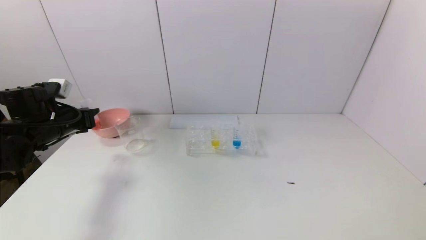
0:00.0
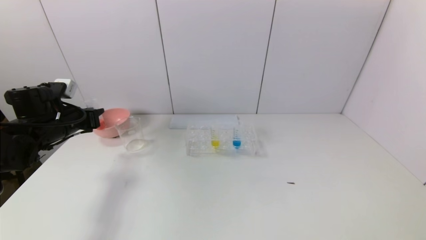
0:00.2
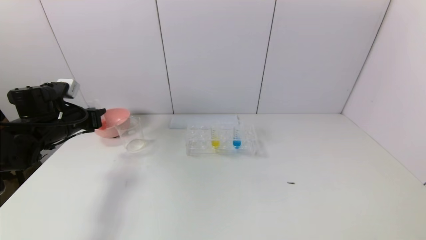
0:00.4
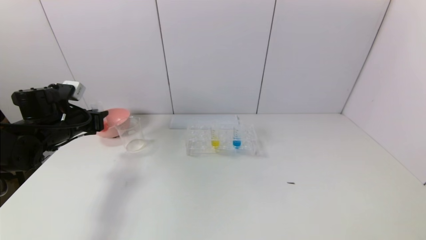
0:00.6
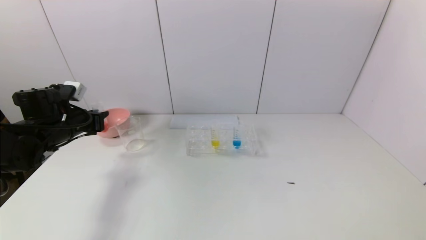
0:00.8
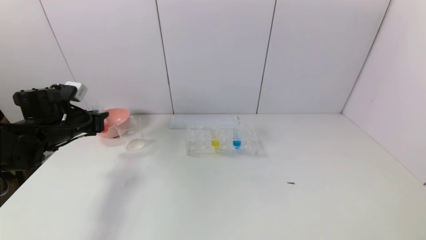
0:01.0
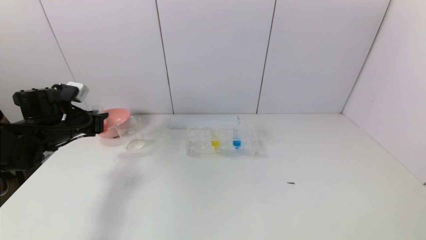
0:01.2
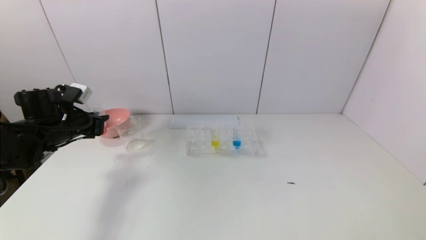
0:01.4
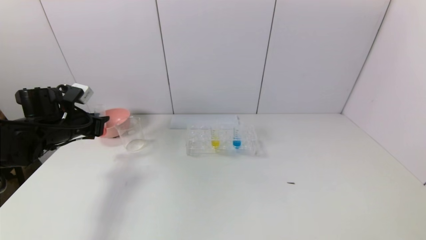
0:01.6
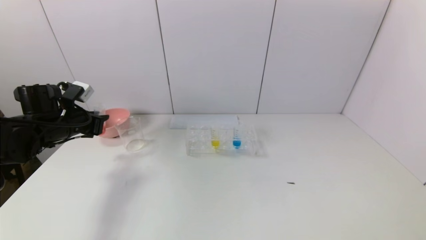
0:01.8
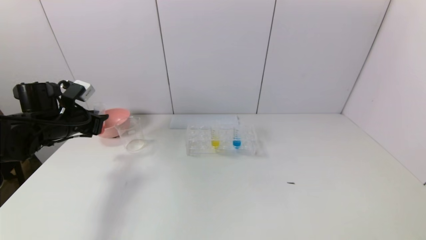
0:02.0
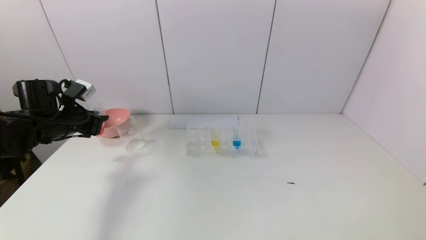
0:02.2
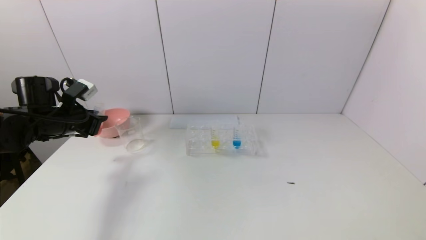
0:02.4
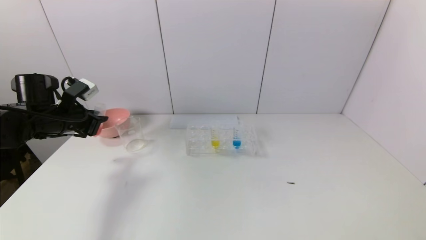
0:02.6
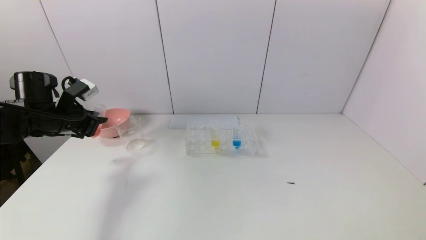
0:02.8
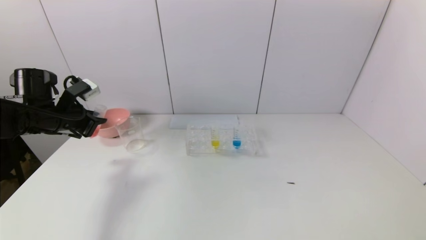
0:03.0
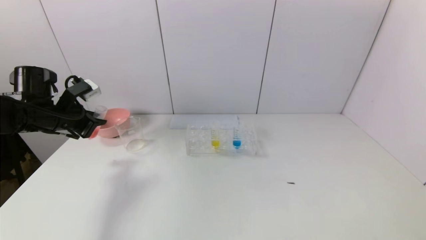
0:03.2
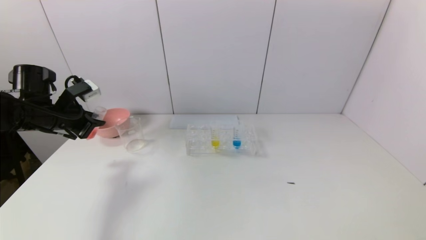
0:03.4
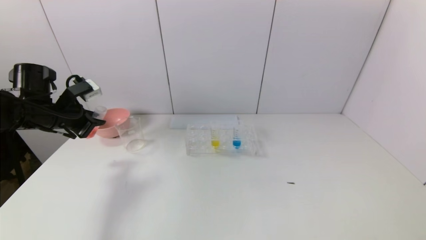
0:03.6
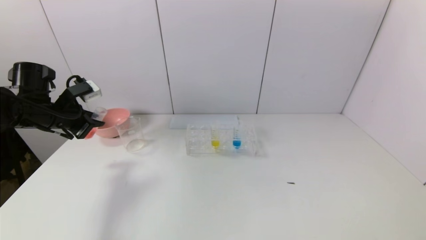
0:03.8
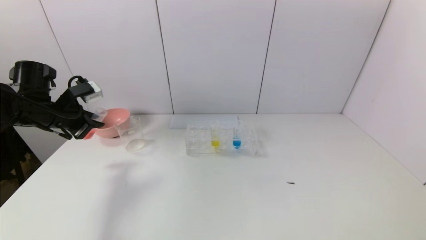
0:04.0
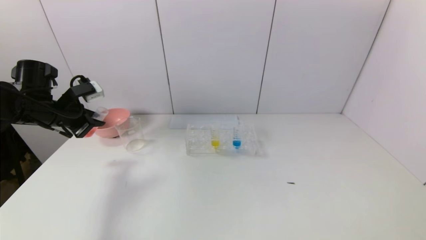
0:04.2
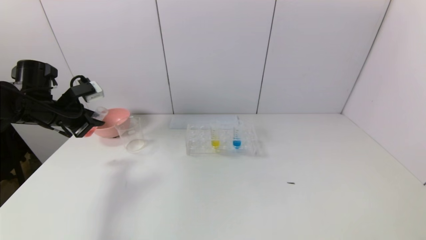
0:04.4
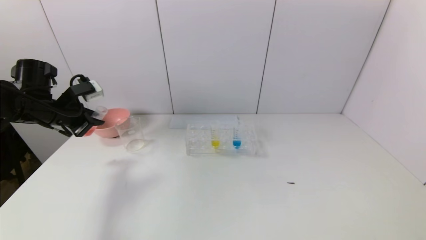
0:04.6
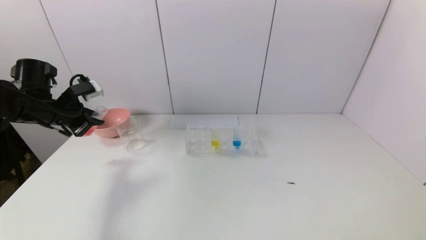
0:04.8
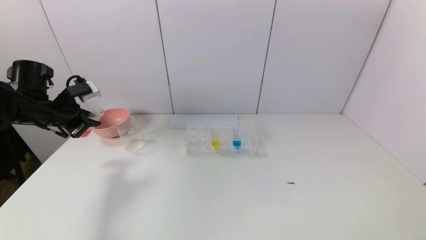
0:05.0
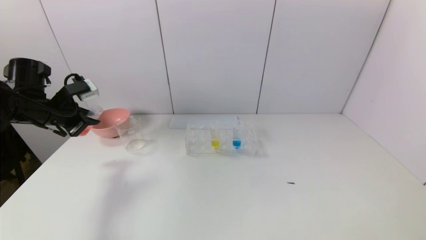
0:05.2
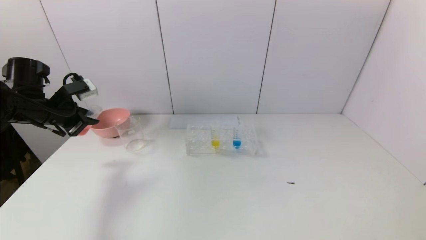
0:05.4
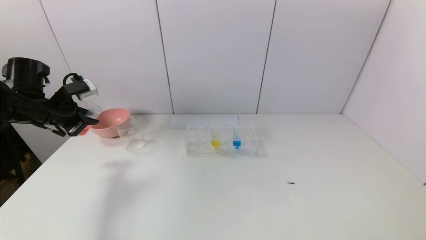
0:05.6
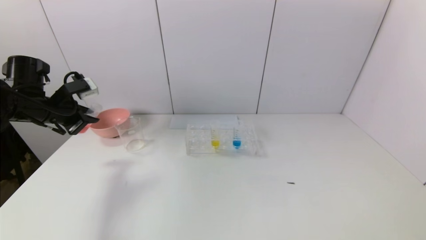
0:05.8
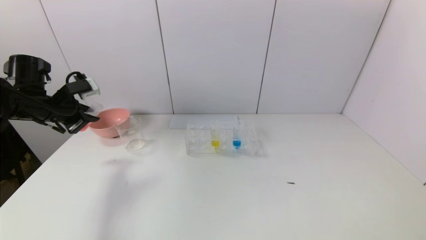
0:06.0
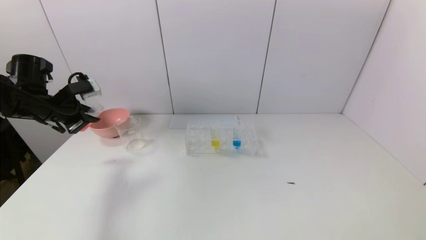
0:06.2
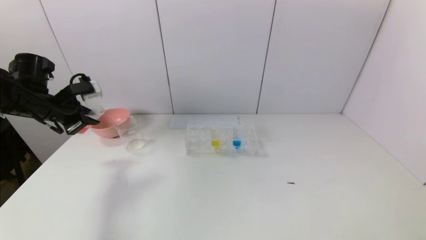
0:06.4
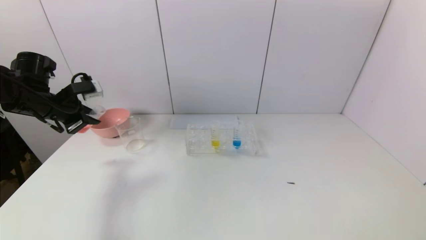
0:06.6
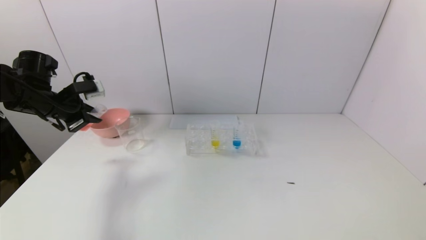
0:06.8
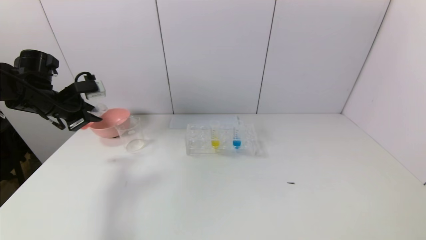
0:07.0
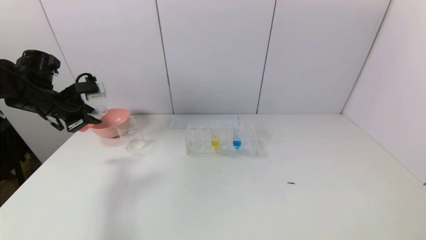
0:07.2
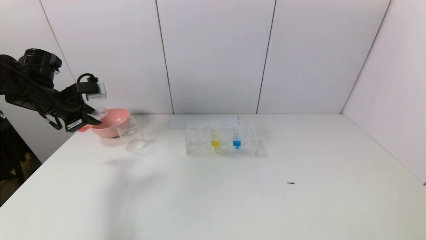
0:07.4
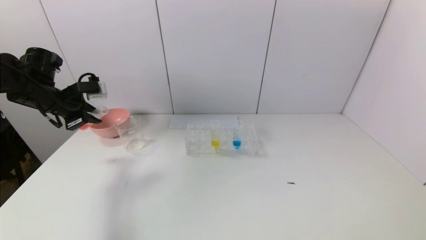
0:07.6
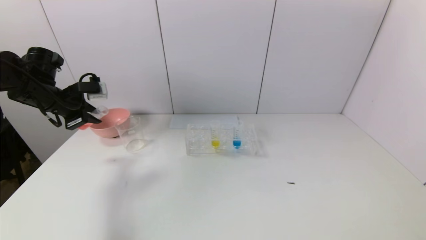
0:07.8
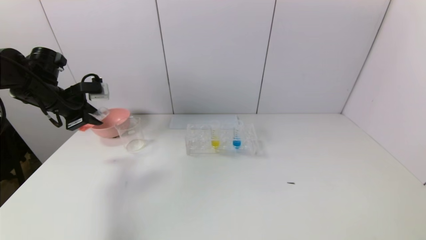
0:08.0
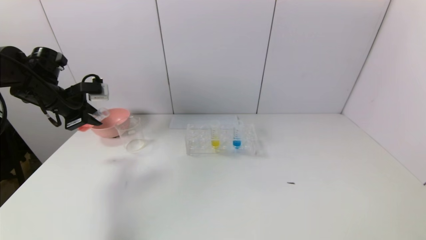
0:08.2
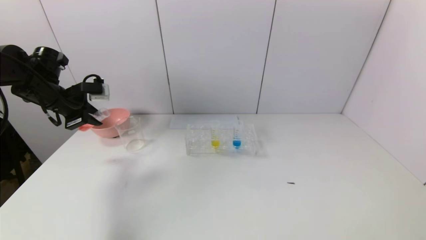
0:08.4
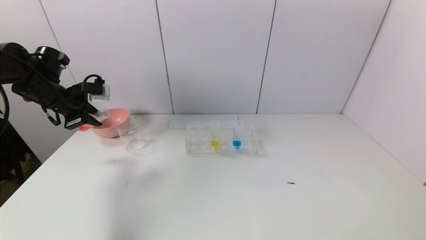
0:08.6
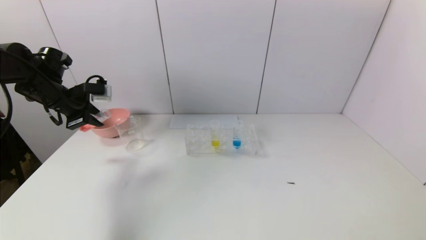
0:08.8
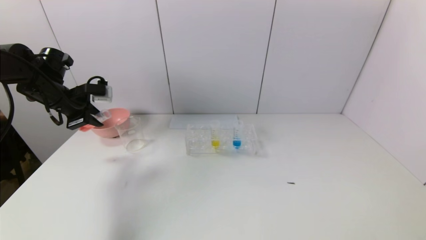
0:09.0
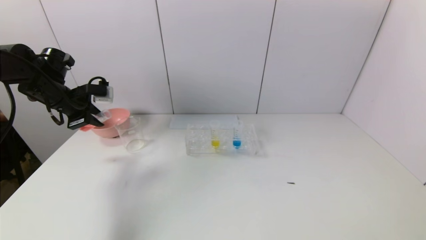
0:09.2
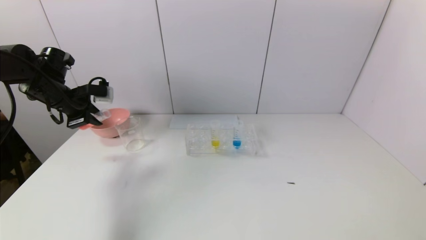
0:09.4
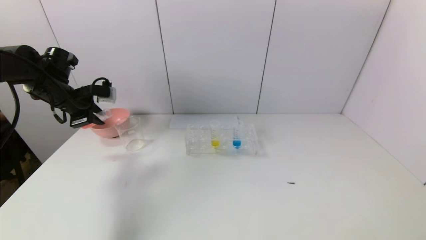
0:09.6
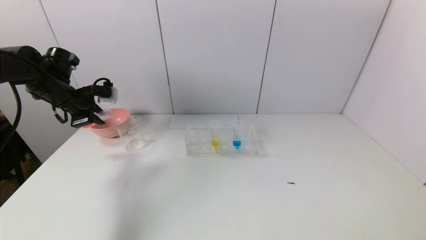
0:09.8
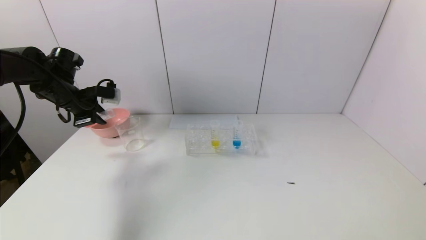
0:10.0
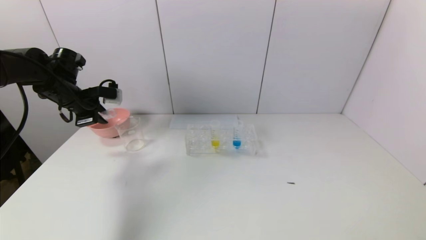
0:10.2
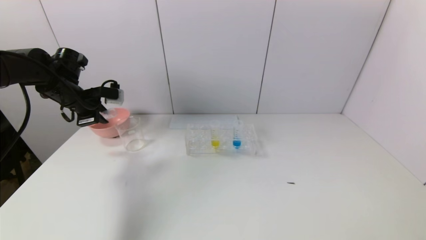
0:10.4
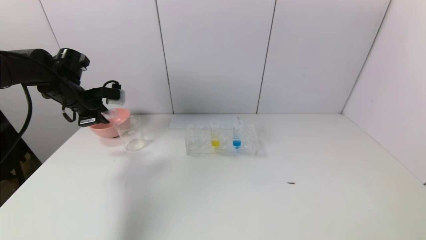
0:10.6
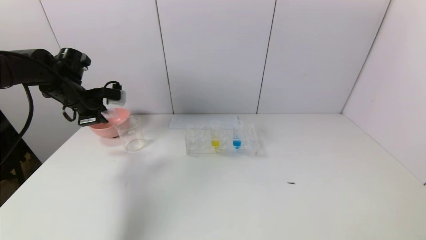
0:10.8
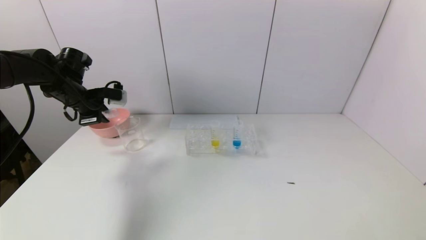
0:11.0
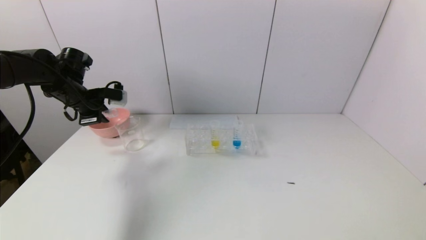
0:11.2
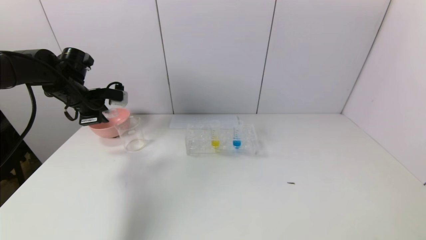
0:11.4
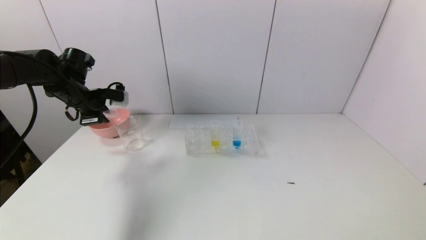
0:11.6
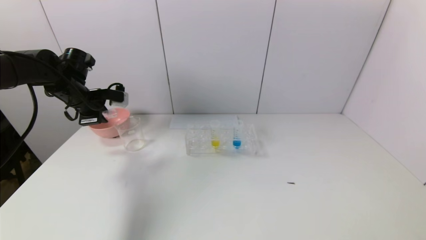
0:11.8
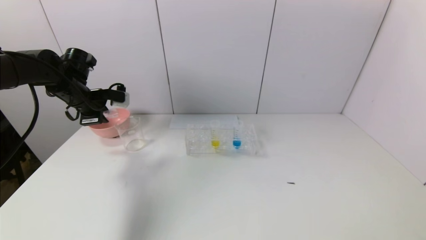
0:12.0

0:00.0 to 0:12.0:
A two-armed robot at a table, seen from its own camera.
Task of the whole recording: pick up the test tube with yellow pigment and the test tube with red pigment by grippers and pour them into the beaker.
0:00.0 to 0:01.6: There are only small adjustments of the grippers.
0:03.0 to 0:06.0: There are only small adjustments of the grippers.
0:06.0 to 0:07.6: The grippers stay close to where they were, moving slightly.
0:07.6 to 0:12.0: The grippers stay close to where they were, moving slightly.

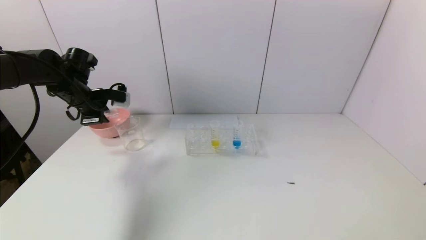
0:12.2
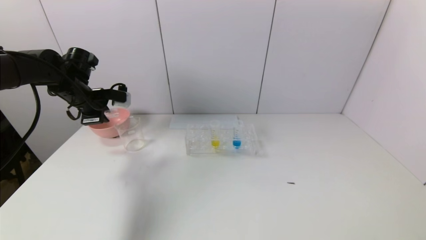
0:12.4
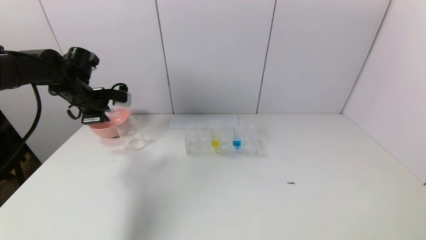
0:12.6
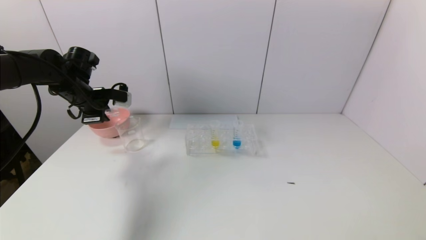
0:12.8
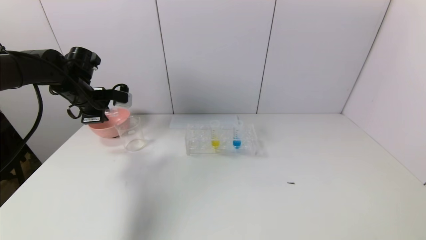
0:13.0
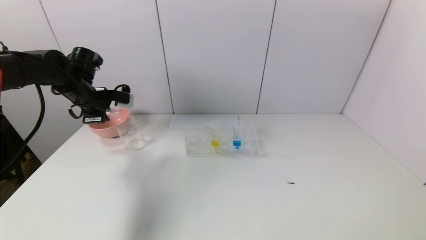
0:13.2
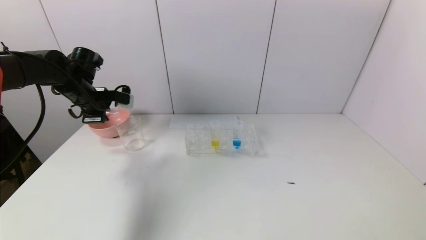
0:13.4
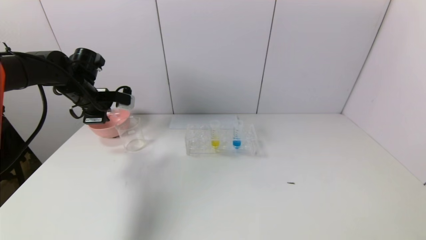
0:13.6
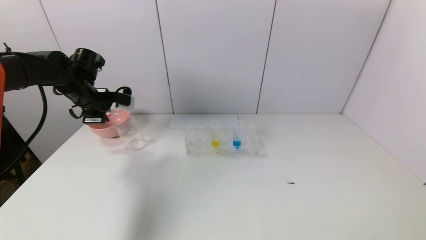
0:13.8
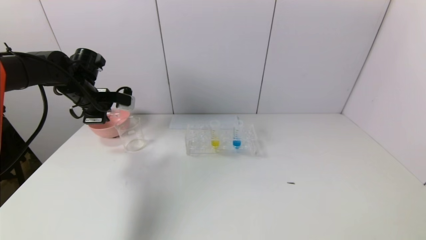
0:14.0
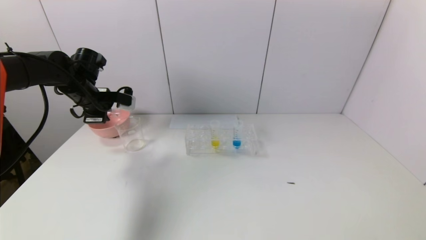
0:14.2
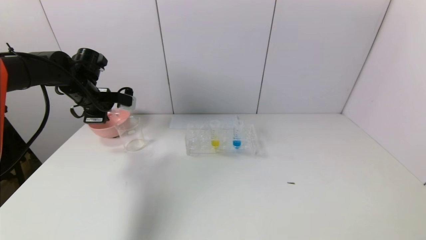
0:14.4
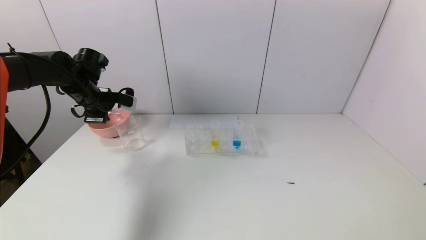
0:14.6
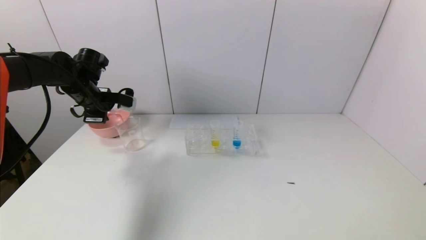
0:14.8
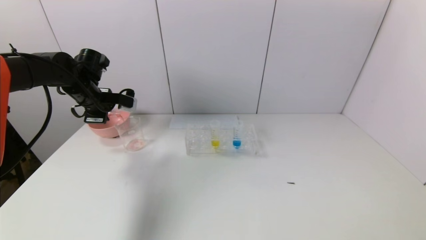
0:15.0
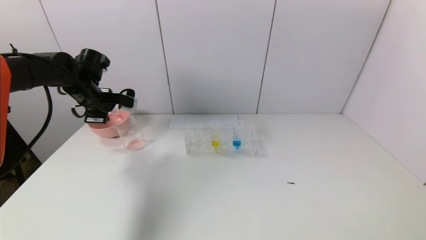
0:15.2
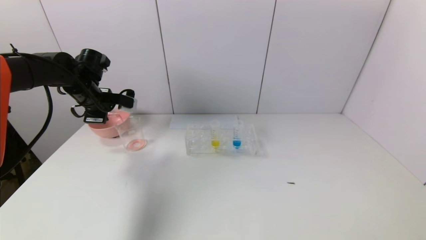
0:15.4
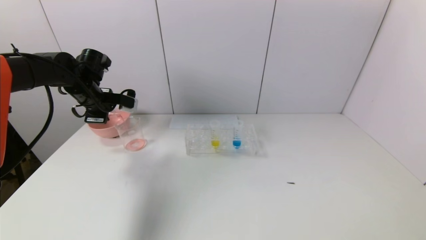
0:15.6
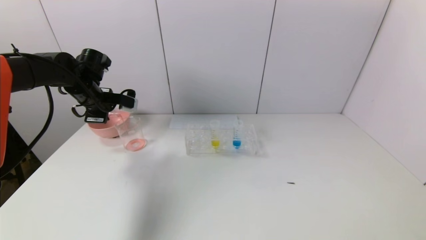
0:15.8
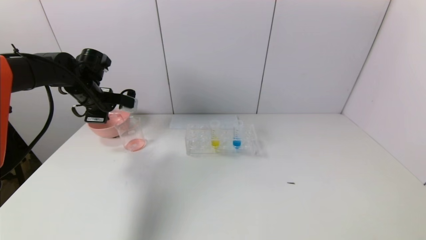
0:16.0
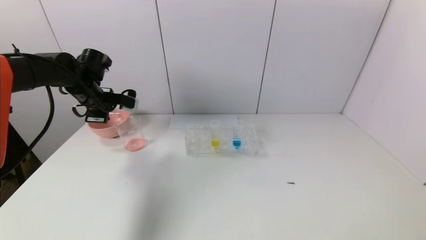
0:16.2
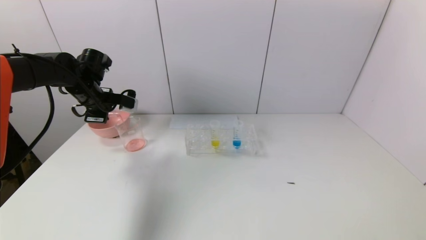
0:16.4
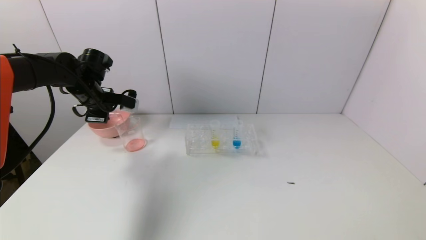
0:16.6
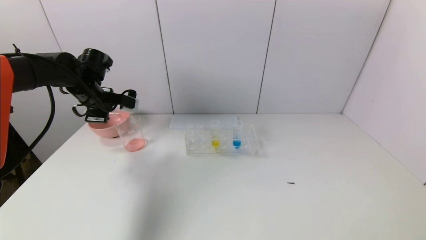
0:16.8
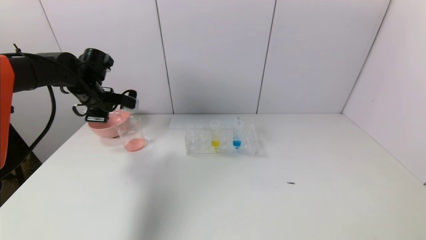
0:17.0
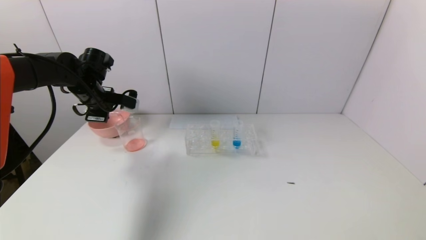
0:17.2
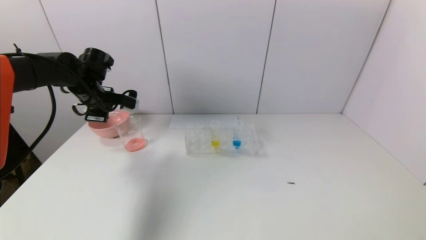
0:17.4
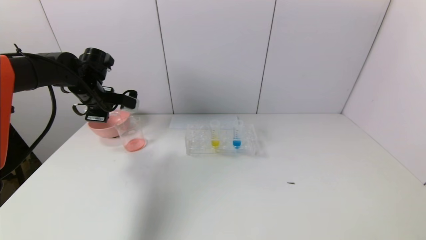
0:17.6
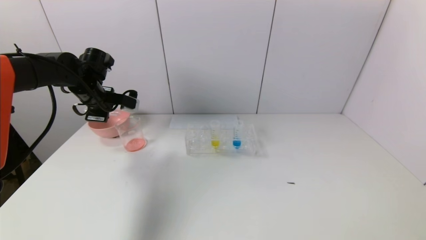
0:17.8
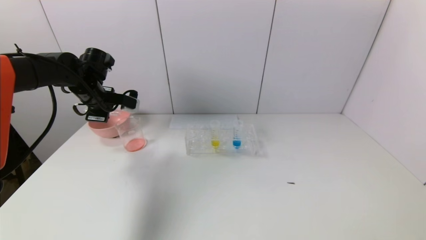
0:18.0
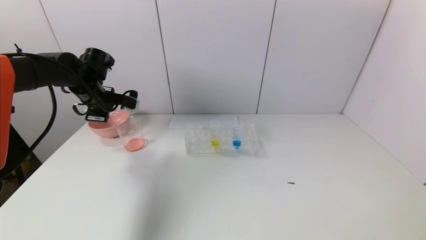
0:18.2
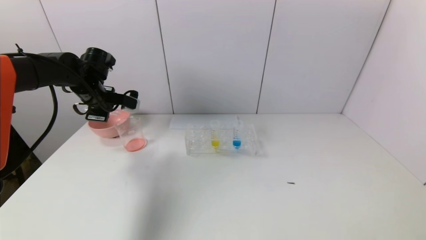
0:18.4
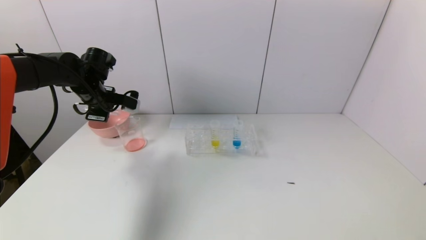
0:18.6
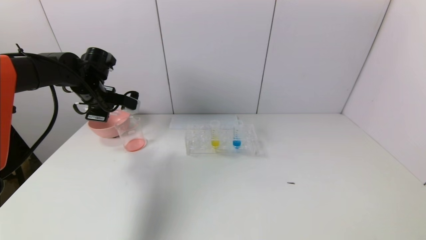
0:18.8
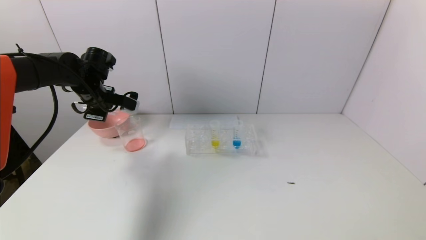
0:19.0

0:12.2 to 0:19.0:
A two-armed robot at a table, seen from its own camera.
Task of the whole recording: pick up the test tube with yellow pigment and the test tube with red pigment by grippers and pour them into the beaker.
0:12.2 to 0:13.6: The grippers move only a little.
0:13.6 to 0:15.0: Both grippers stay put.
0:15.0 to 0:16.2: Both grippers stay put.
0:16.2 to 0:17.6: Neither gripper changes place.
0:17.6 to 0:19.0: There are only small adjustments of the grippers.
